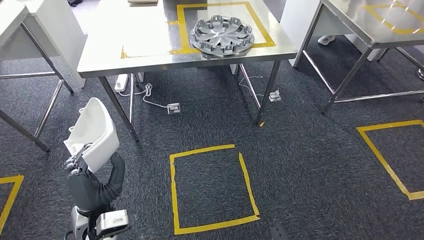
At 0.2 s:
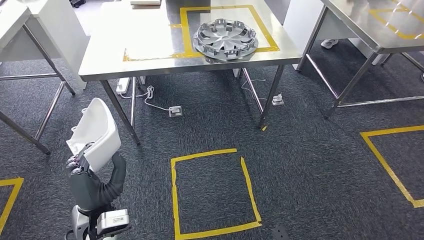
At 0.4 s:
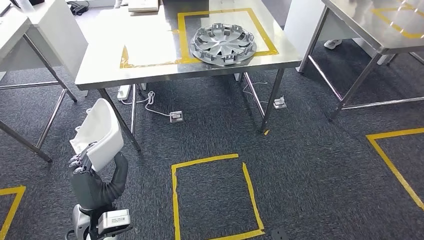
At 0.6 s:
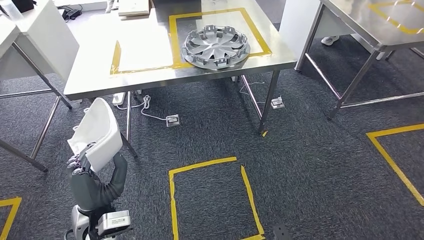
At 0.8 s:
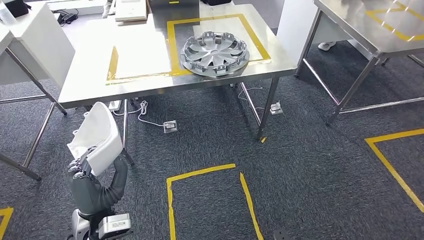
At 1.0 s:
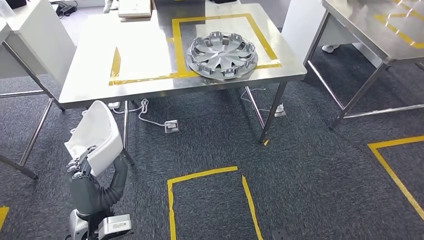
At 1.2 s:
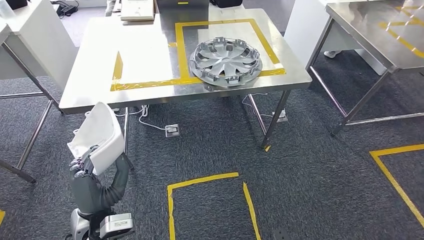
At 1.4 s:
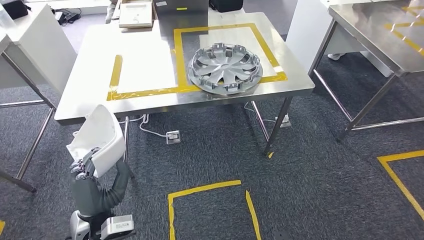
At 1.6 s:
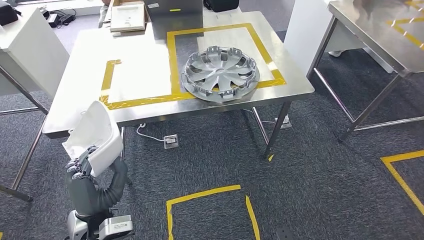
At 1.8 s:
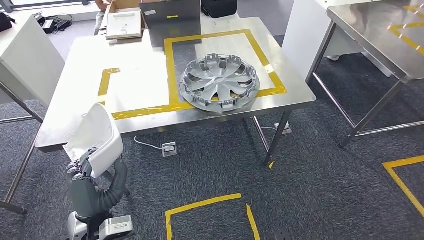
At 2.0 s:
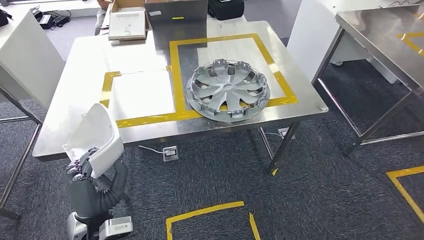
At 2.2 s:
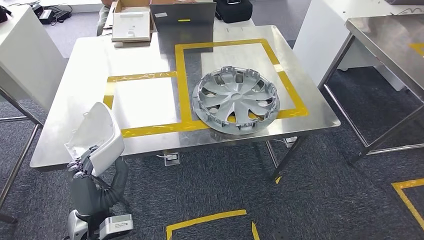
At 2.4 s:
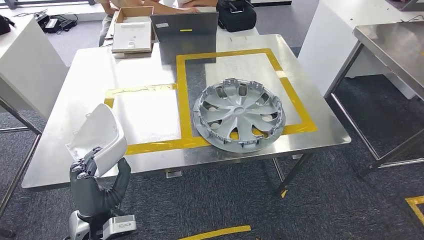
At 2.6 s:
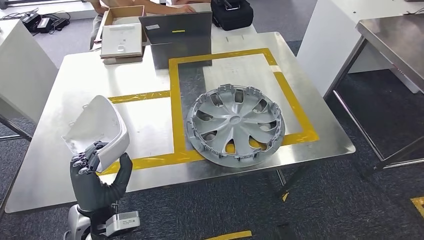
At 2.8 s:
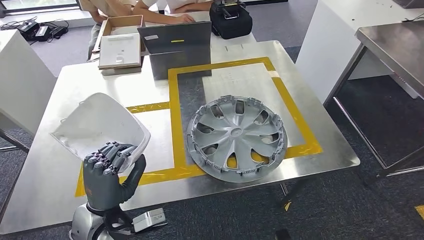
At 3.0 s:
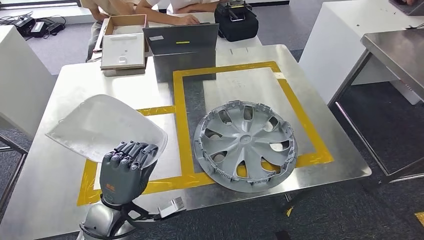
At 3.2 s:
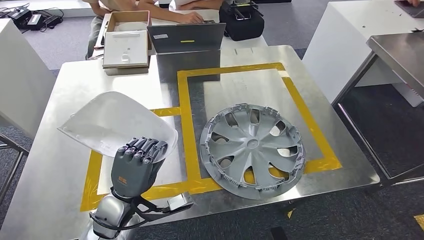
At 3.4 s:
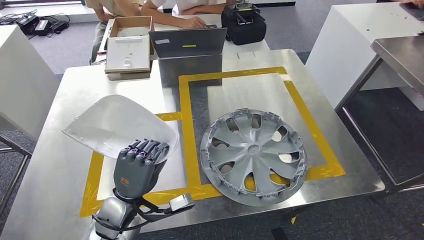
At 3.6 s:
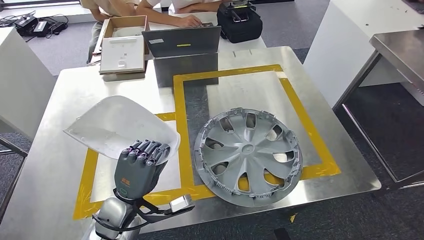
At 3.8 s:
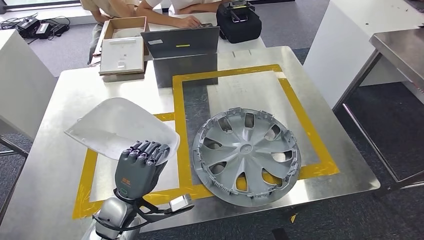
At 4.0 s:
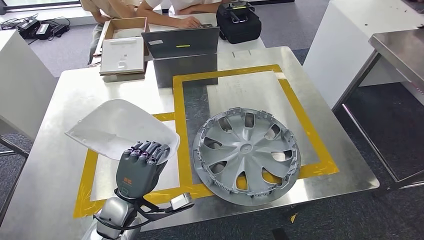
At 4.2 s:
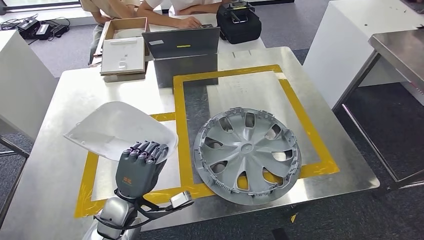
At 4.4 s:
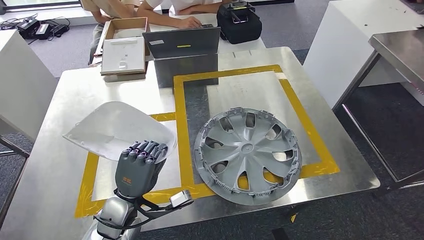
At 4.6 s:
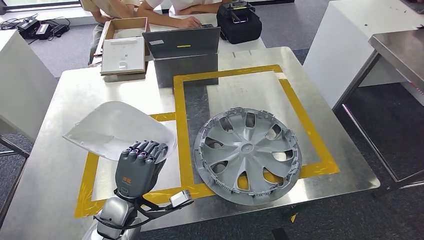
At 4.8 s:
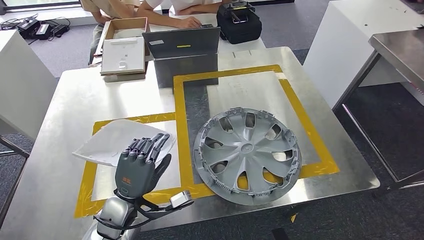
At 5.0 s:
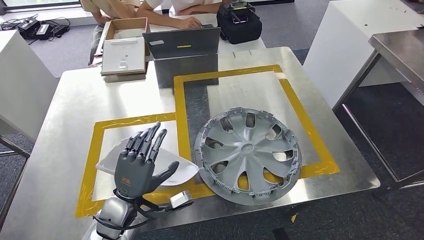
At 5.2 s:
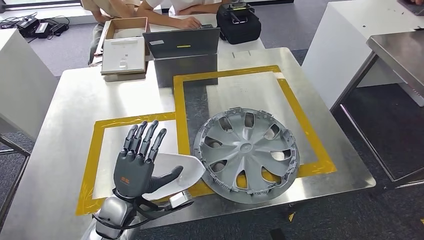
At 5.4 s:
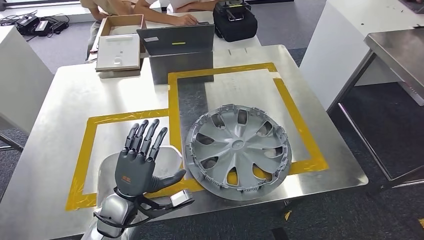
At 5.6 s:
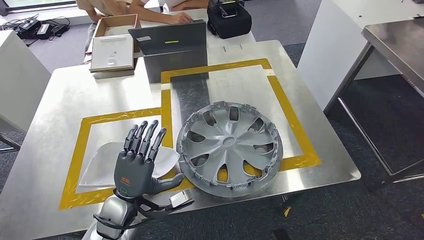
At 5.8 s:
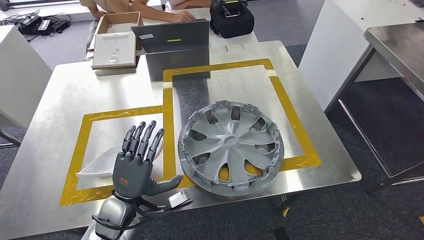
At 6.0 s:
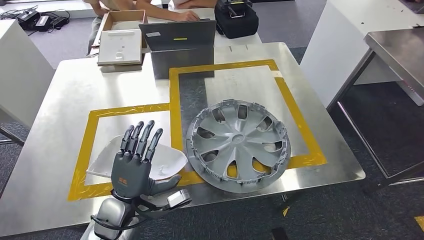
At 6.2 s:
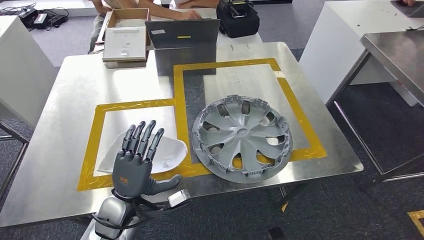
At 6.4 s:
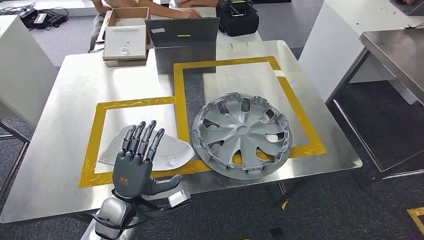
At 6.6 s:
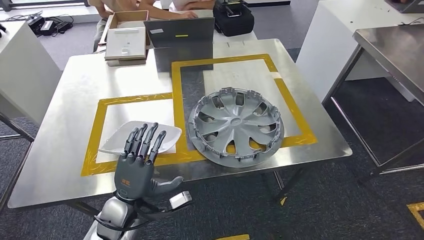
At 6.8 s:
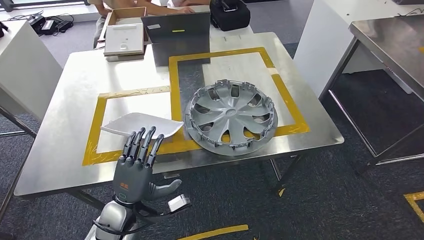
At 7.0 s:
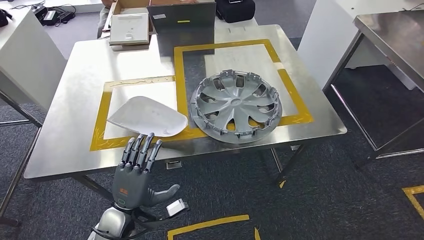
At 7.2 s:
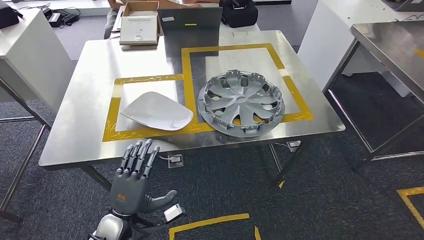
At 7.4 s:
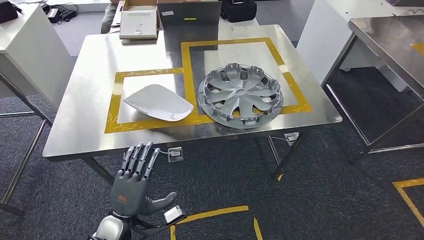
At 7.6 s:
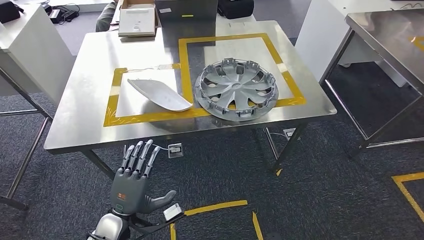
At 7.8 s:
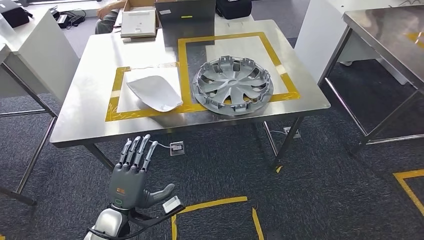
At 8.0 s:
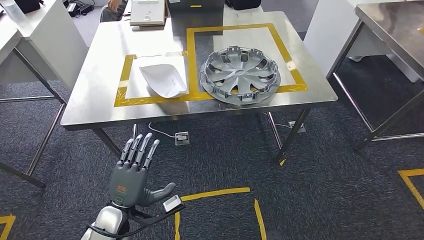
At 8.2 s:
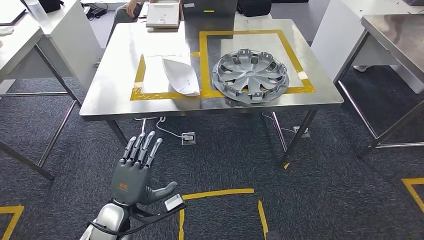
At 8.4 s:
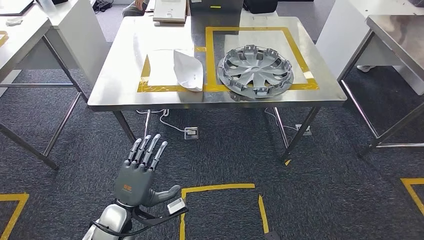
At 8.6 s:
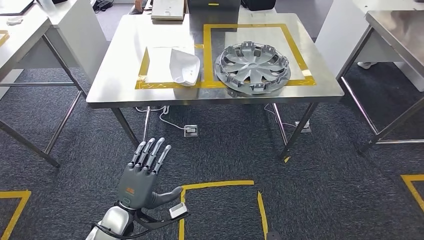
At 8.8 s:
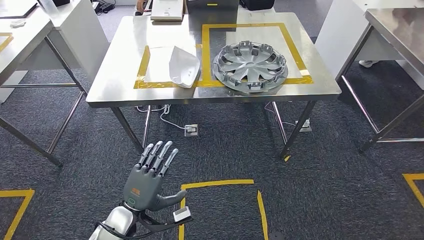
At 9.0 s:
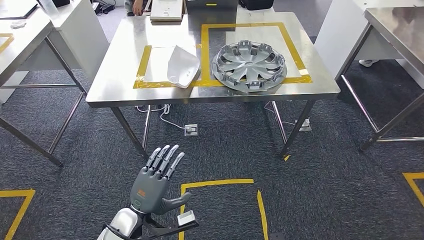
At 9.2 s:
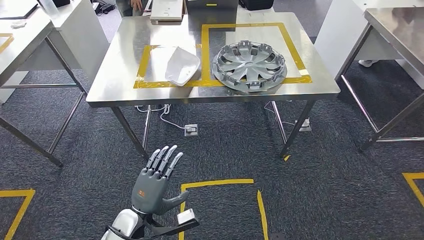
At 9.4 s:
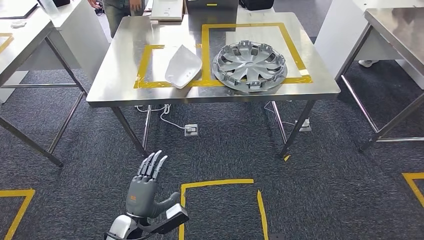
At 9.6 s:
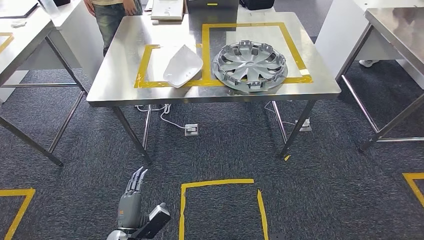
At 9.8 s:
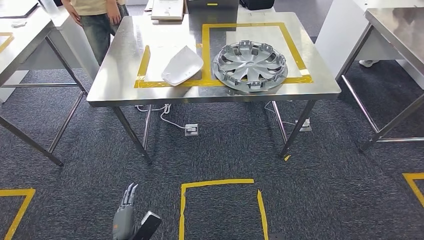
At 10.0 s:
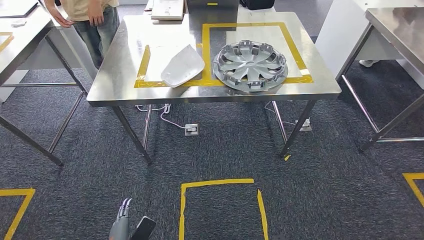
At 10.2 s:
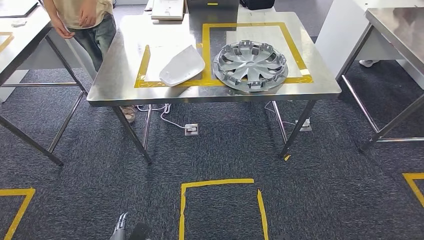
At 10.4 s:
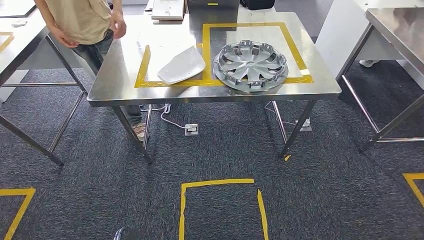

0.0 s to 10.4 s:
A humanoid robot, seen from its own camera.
Step, 0.0 to 2.2 s: Bring the small component to the front of the workbench.
Step, 2.6 to 6.4 s: Insert the small component into the corresponding slot on the workbench.
Step, 6.6 to 10.4 s: Move to the initial position of the workbench.
9.0 to 10.4 s: The left hand shifts approximately 25 cm downward, backward and to the left.

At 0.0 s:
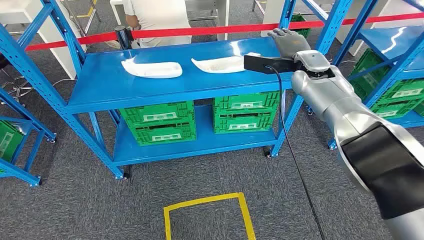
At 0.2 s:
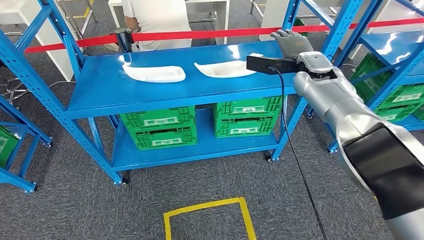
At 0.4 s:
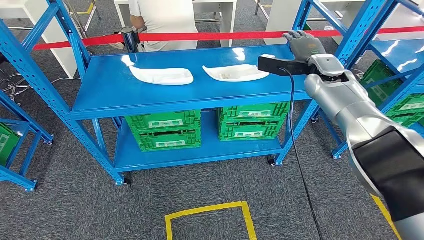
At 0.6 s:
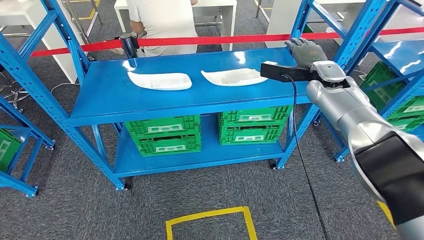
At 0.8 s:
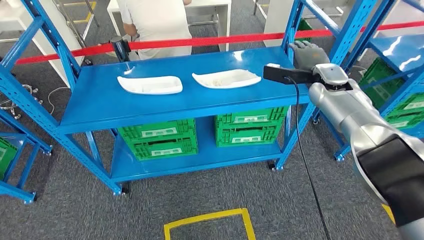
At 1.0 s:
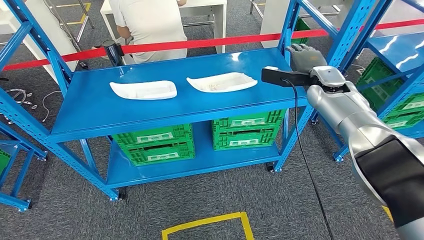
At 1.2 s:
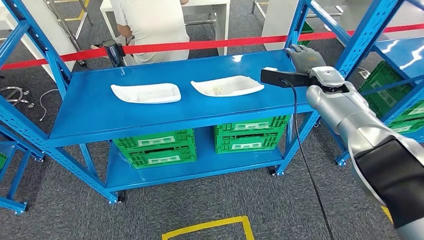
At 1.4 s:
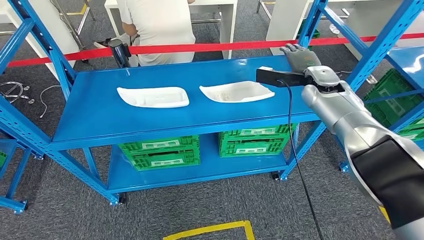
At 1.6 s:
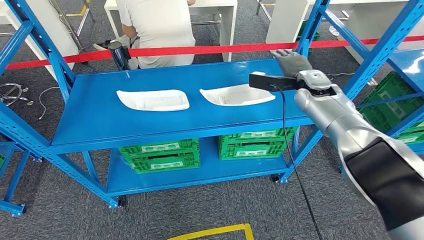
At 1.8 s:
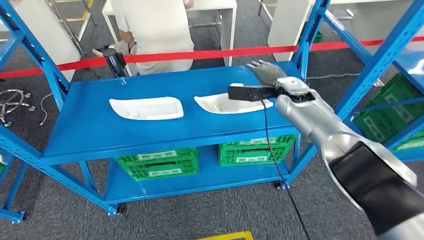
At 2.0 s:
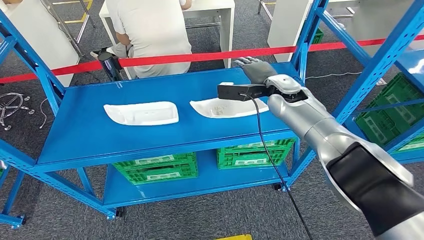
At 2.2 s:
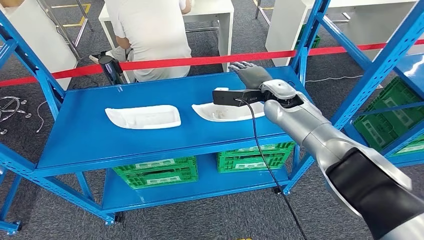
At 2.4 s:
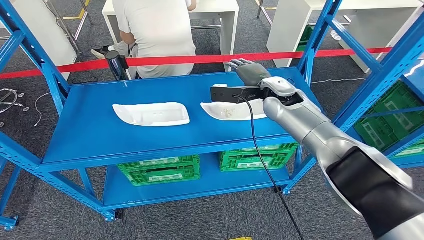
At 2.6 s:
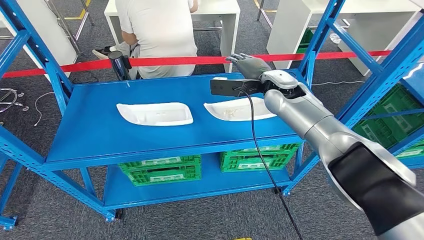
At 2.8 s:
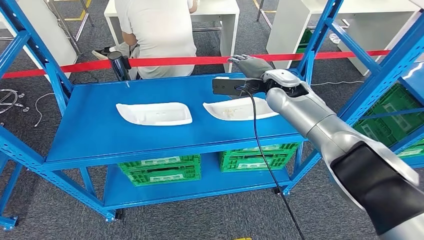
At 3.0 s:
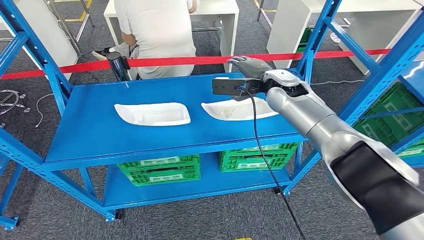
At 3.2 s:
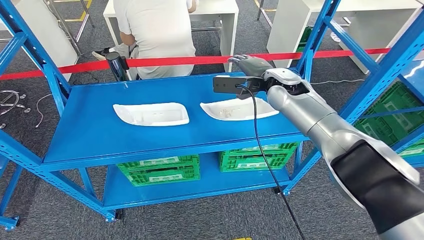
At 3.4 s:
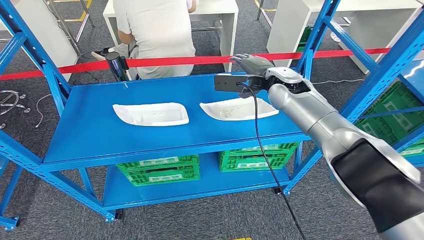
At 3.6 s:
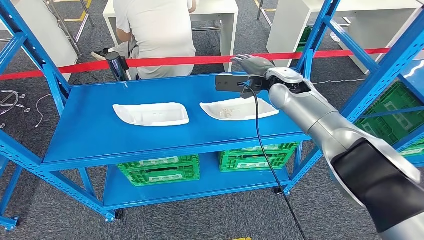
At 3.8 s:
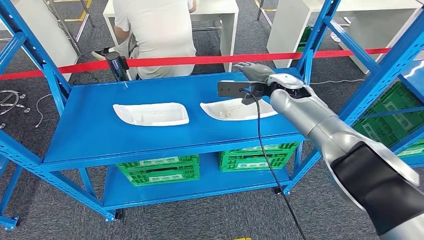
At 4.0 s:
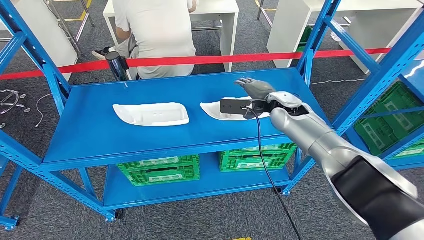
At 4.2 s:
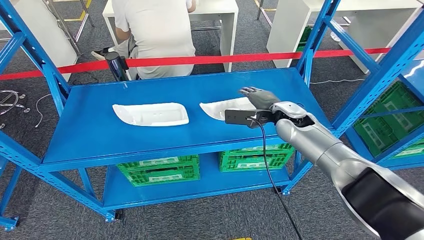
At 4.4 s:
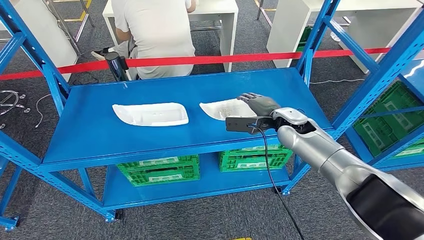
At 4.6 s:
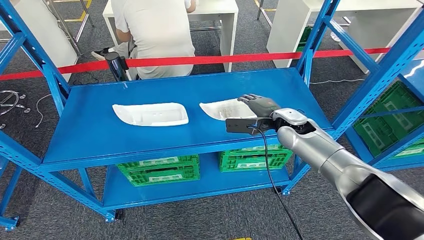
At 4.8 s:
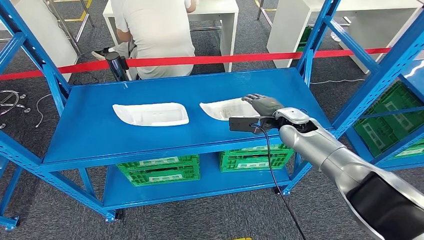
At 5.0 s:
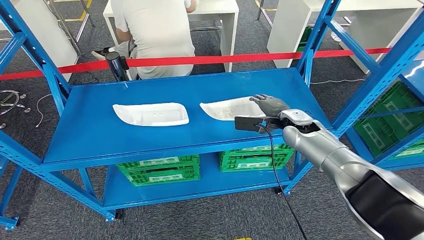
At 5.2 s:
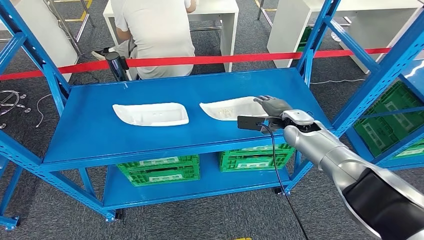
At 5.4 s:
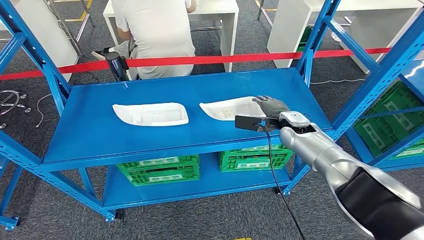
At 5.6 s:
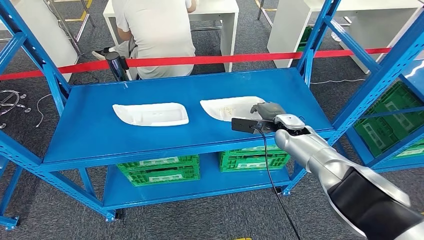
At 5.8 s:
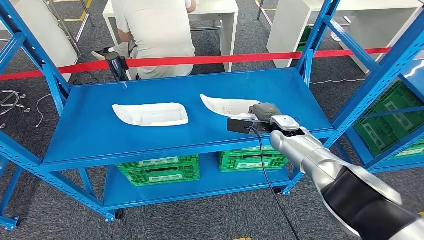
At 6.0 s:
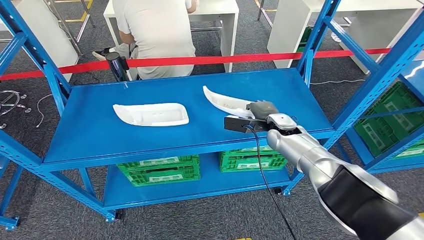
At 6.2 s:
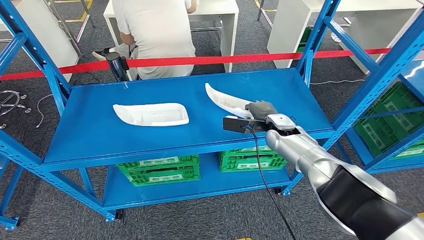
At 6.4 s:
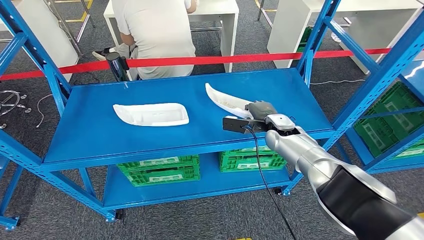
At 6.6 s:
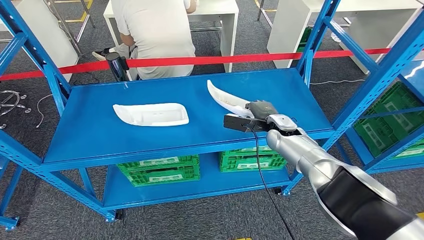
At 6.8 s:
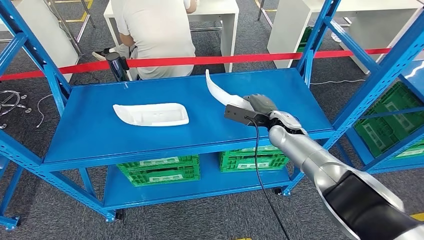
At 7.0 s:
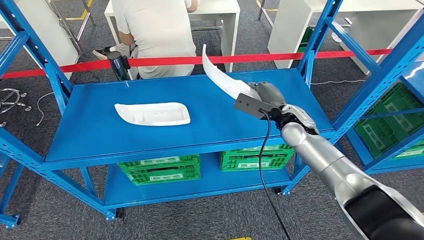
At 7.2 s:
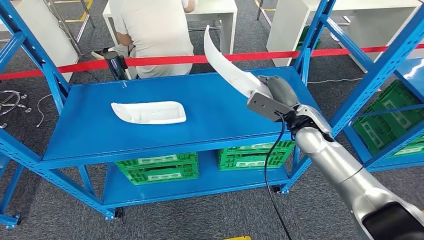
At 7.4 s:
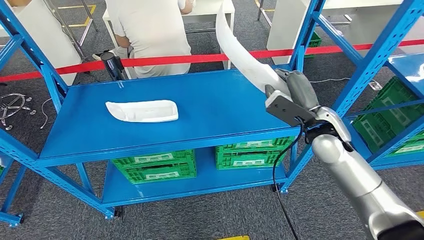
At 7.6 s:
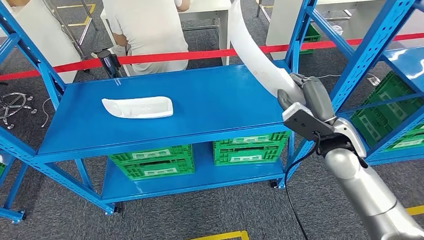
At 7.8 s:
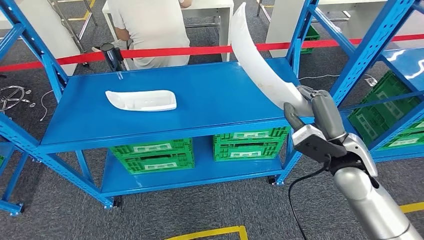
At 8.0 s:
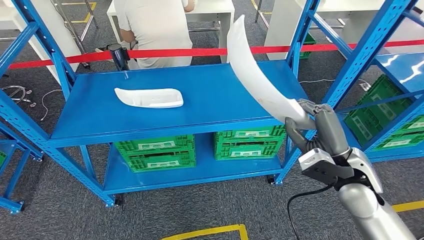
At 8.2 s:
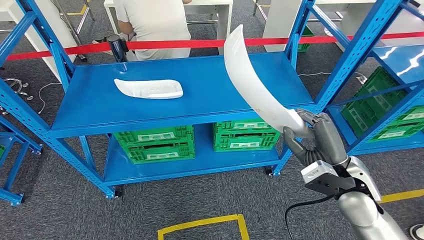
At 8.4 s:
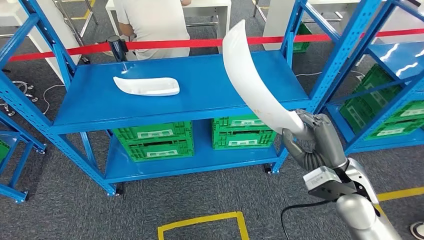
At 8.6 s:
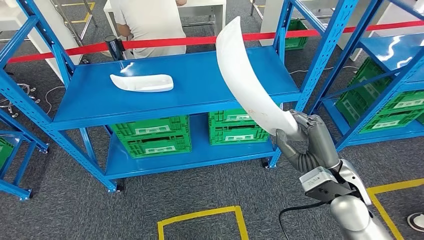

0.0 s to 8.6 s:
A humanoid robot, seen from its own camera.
4.4 to 5.8 s: The right hand is displaced downward by about 5 cm.
